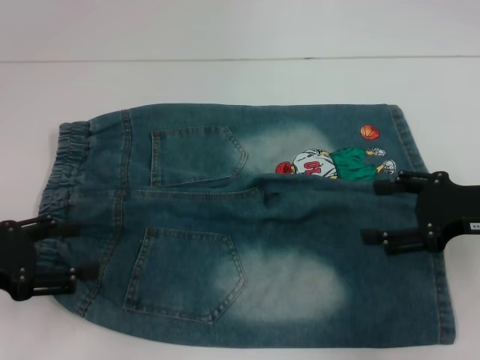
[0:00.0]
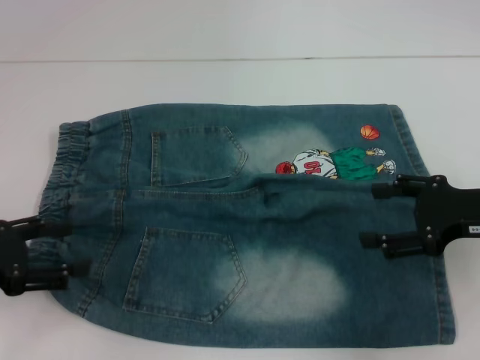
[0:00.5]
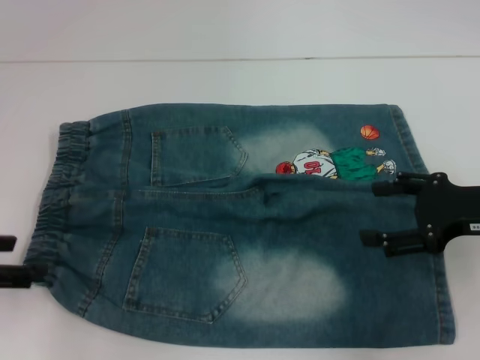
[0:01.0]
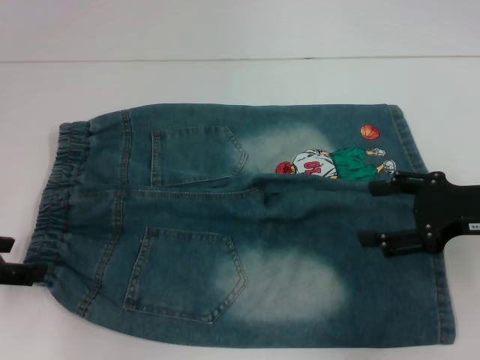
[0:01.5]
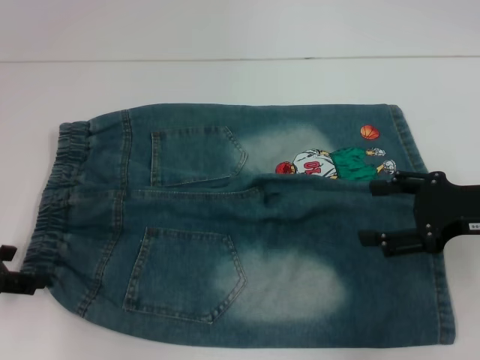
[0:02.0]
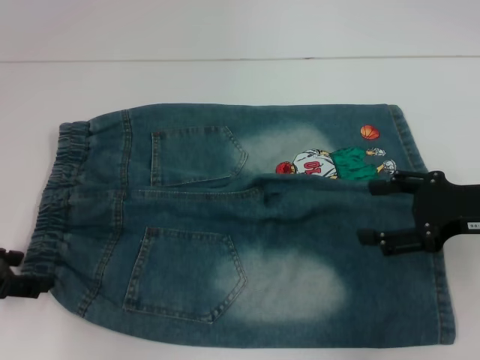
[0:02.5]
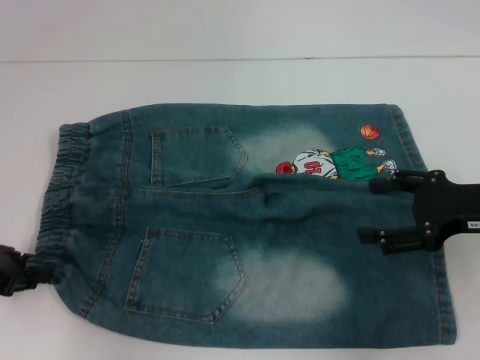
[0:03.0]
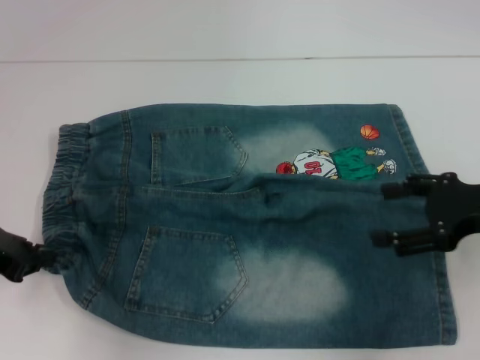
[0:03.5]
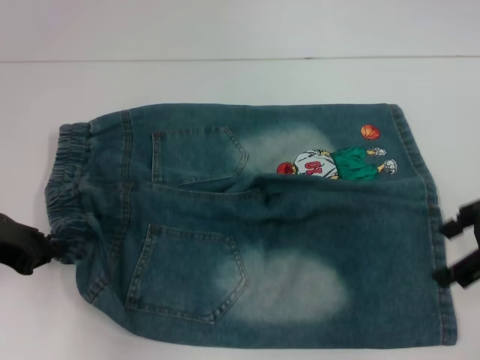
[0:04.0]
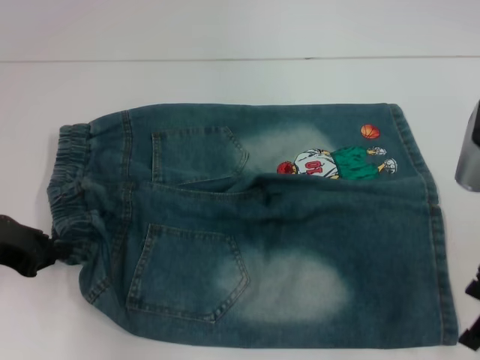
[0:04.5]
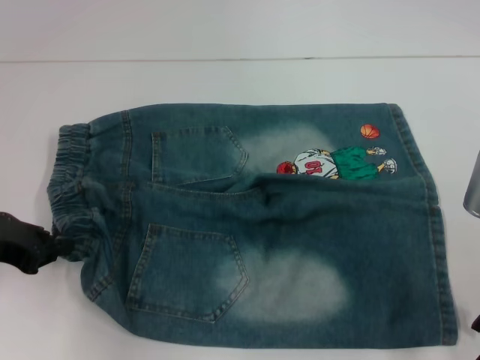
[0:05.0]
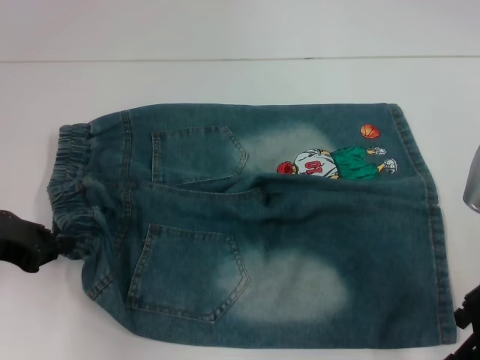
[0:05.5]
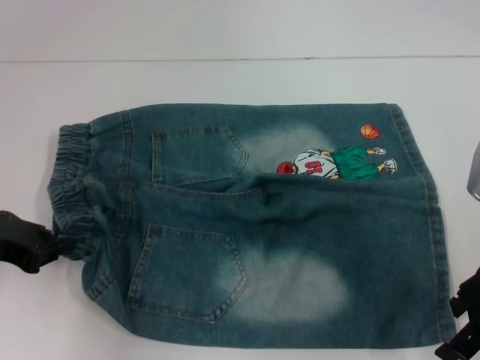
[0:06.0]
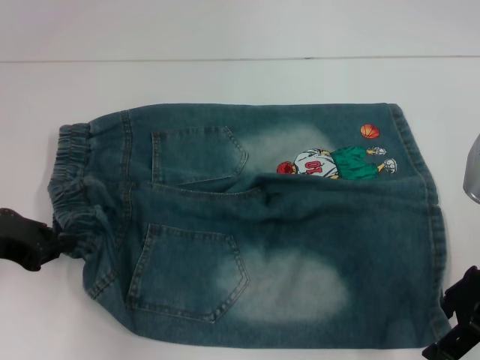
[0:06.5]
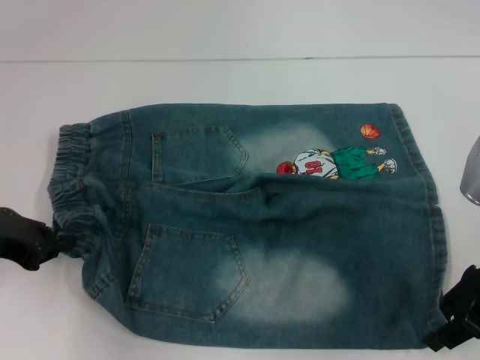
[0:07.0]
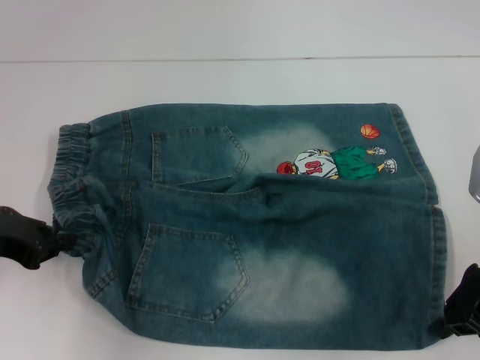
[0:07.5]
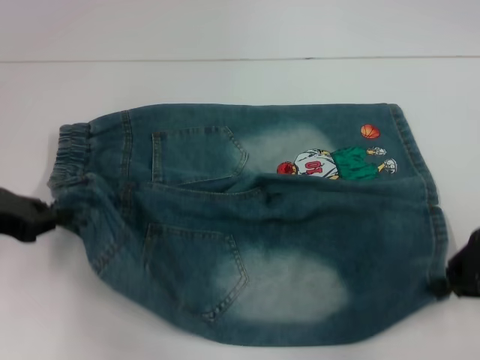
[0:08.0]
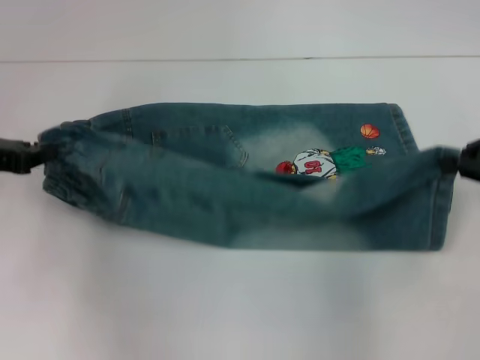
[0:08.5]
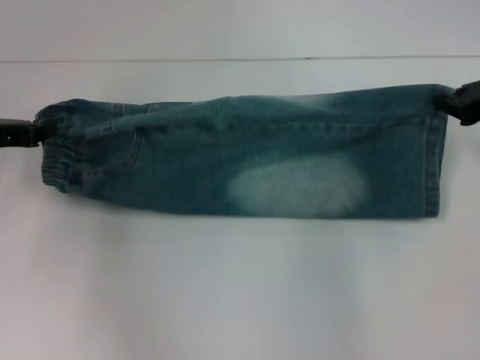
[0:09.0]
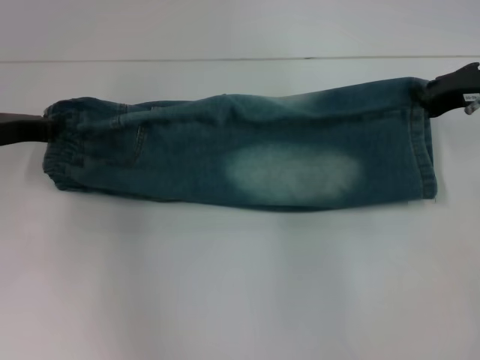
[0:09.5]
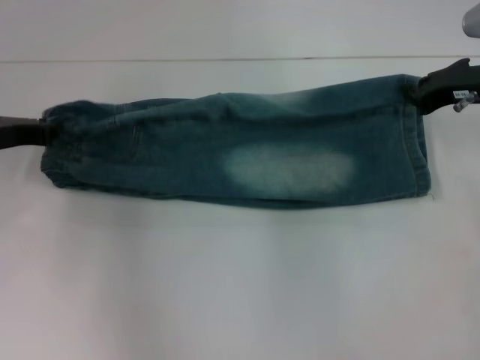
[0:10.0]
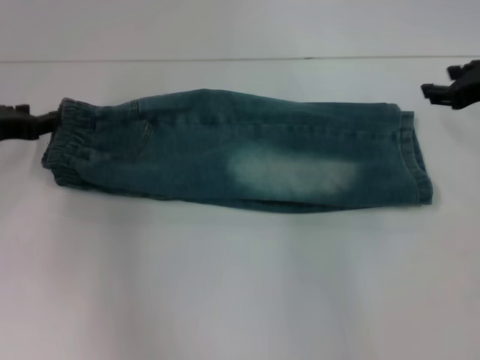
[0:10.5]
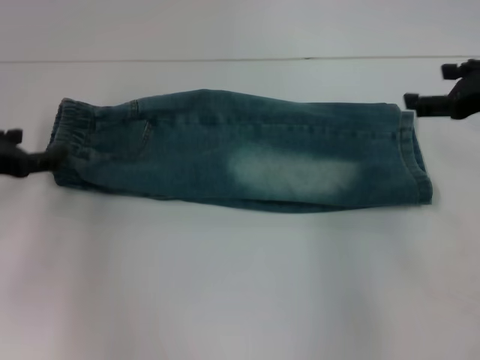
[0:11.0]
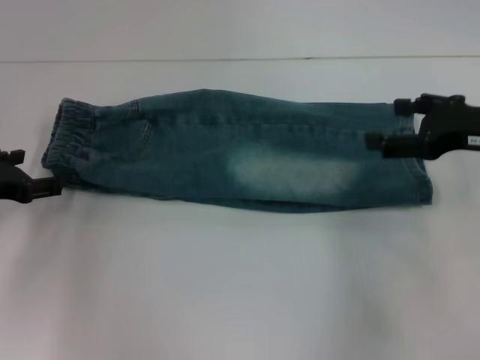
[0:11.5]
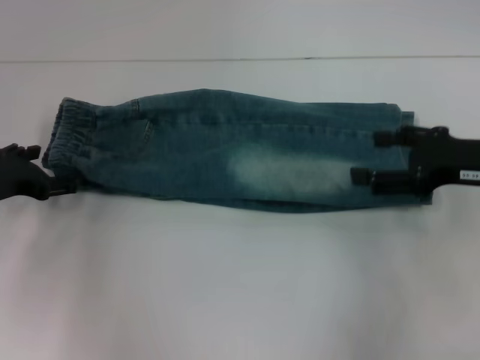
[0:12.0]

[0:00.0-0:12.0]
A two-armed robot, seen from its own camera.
Step, 0:00.0 to 0:03.5: Hold the lower left waistband with your left hand.
Step, 0:04.0 to 0:07.5: Grab the lower right pant leg with your right hand.
Step, 0:08.0 to 0:10.0: Fold upward with your left hand.
0:02.0 to 0:04.0: The left gripper closes up, while the right gripper goes approximately 5 cm upward.
0:04.0 to 0:06.0: The right gripper moves about 5 cm.
0:06.0 to 0:08.0: The right gripper closes its fingers.
0:08.0 to 0:10.0: Both grippers travel together forward, about 10 cm.
0:10.0 to 0:12.0: The right gripper travels backward by approximately 10 cm, and opens up, while the left gripper ends up some 5 cm from where it was, and opens.

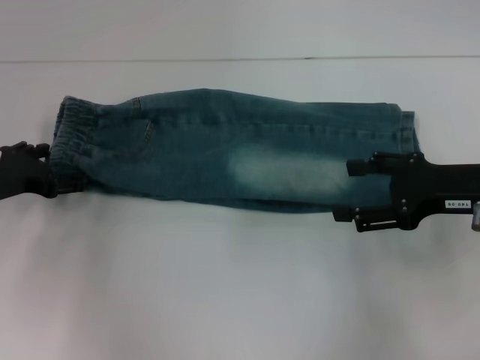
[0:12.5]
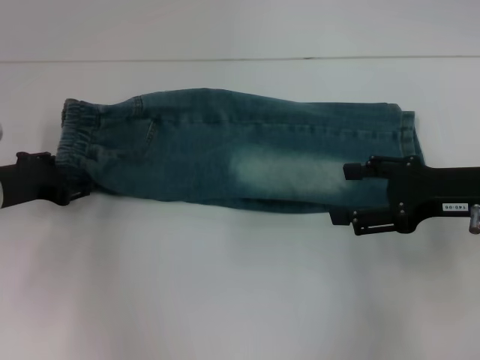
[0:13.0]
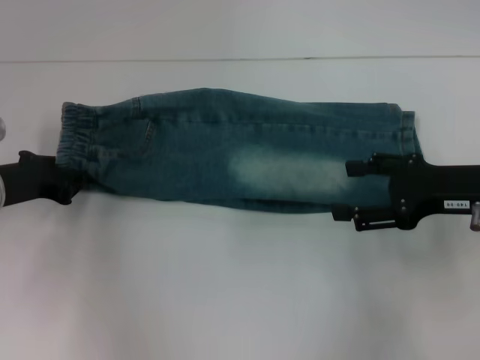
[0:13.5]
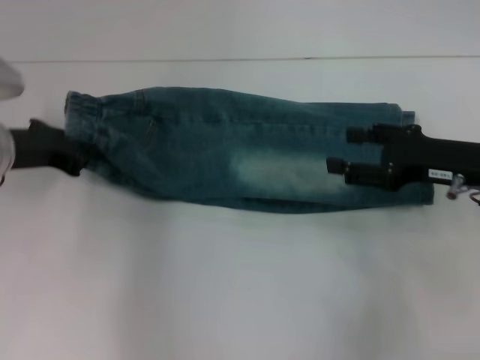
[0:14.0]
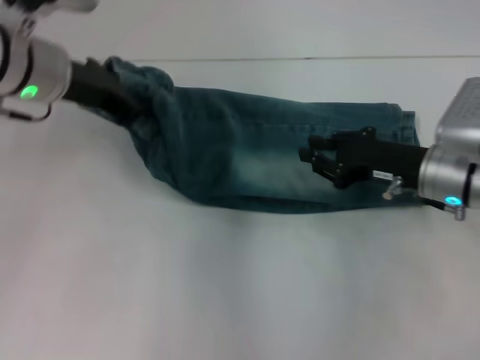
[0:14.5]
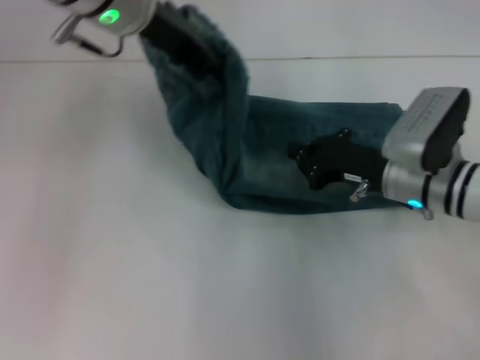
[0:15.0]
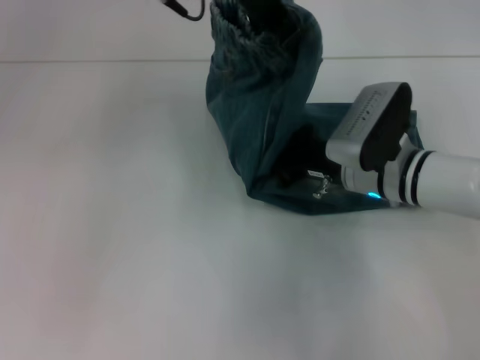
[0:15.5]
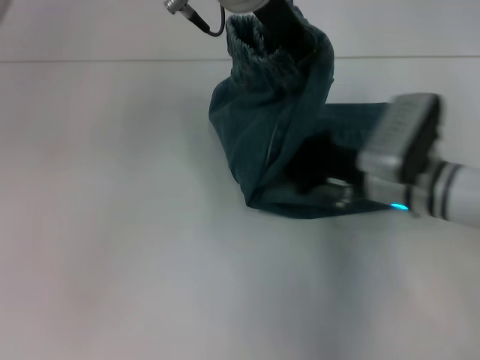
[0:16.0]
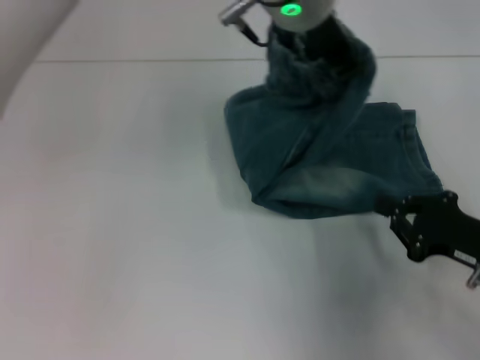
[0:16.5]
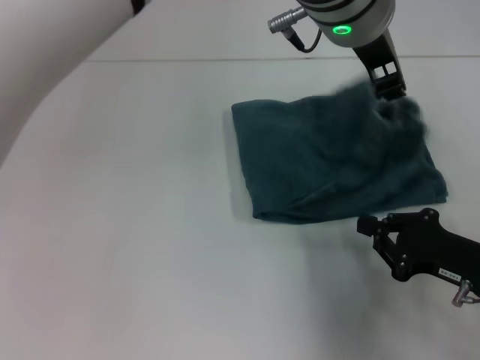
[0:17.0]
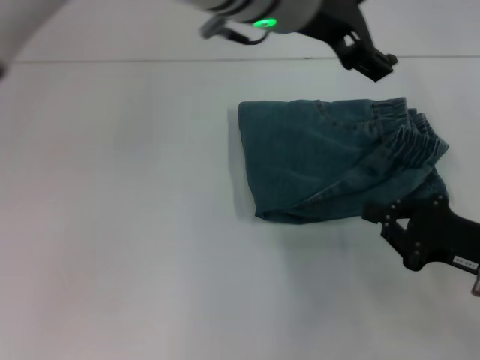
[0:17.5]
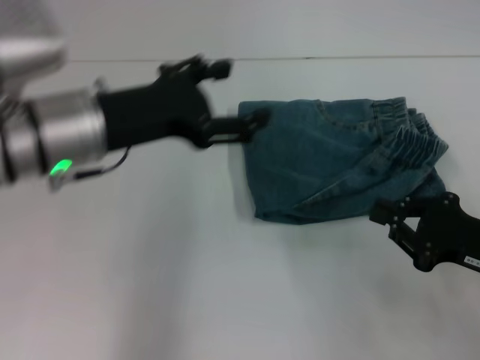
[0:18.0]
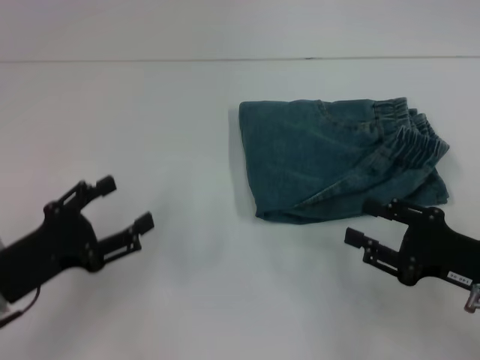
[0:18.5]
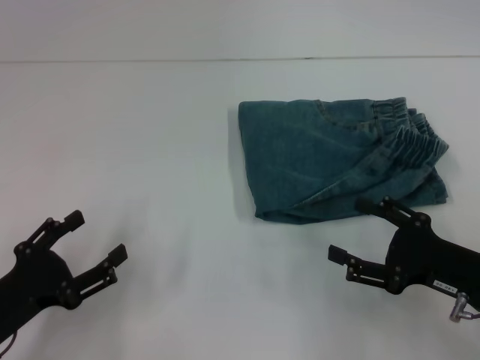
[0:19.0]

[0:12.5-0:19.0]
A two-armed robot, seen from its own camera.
Step, 0:14.0 to 0:15.5: Press the middle of the pants with your right hand.
Step, 0:16.0 to 0:17.0: Fold to the right with your left hand.
0:12.5 to 0:14.5: The left gripper shifts about 15 cm upward, to the right and forward, and closes, while the right gripper shifts roughly 5 cm downward, and closes up.
0:14.5 to 0:17.0: The right gripper heads backward and to the right, covering approximately 10 cm, and closes up. Meanwhile the left gripper travels to the right by approximately 25 cm.
0:17.0 to 0:19.0: The right gripper opens up; the left gripper goes roughly 50 cm to the left, downward and backward, and opens its fingers.

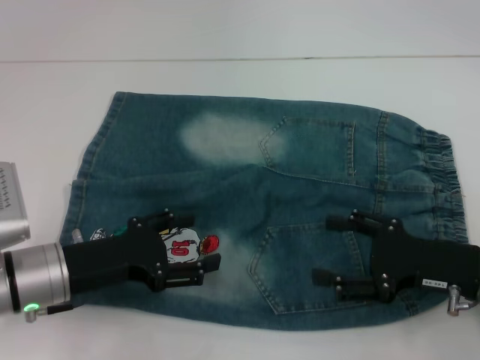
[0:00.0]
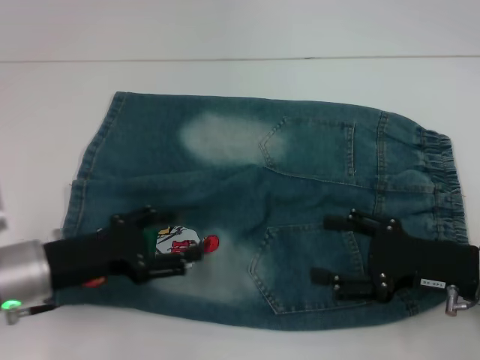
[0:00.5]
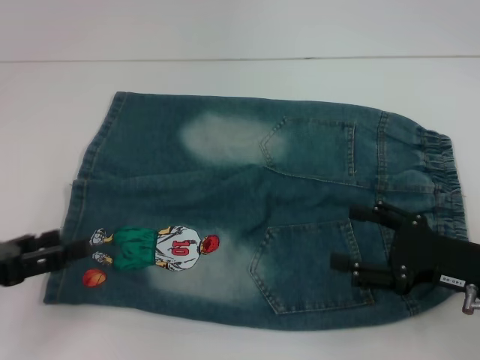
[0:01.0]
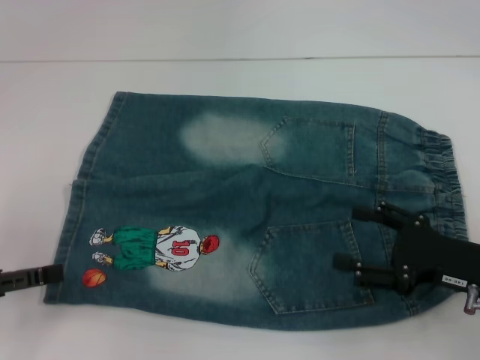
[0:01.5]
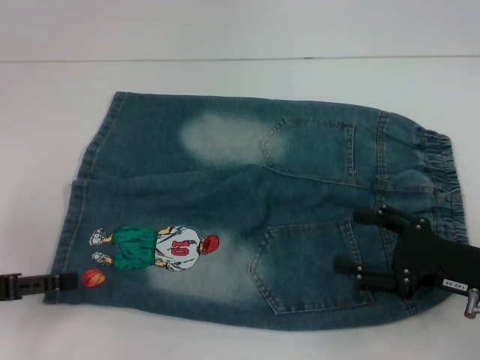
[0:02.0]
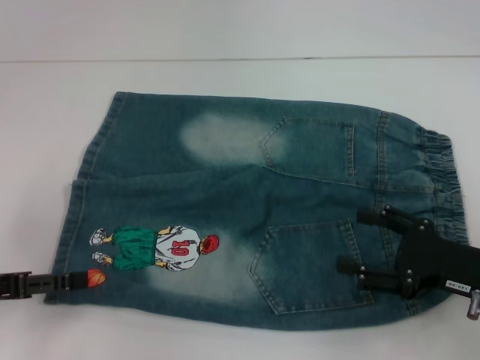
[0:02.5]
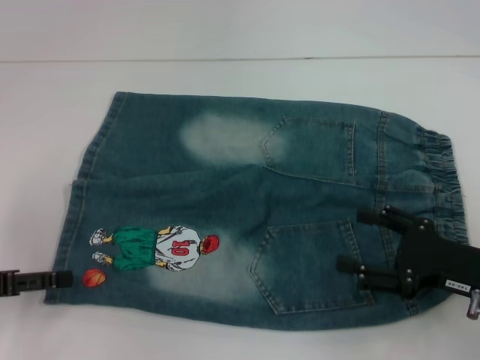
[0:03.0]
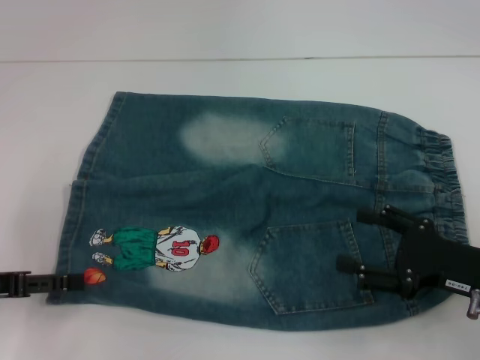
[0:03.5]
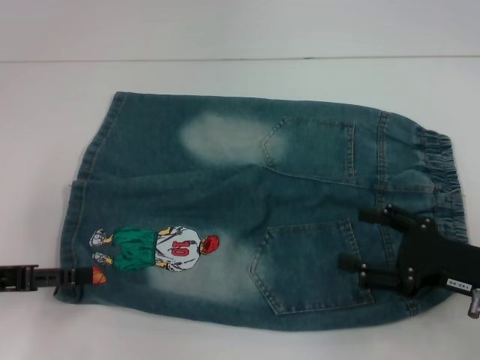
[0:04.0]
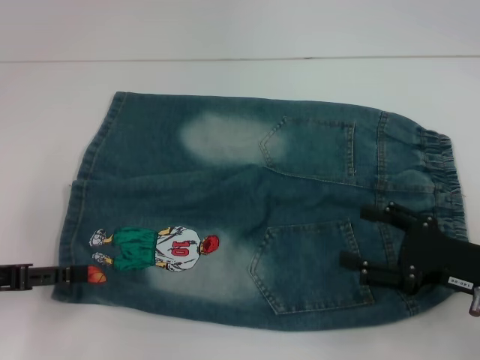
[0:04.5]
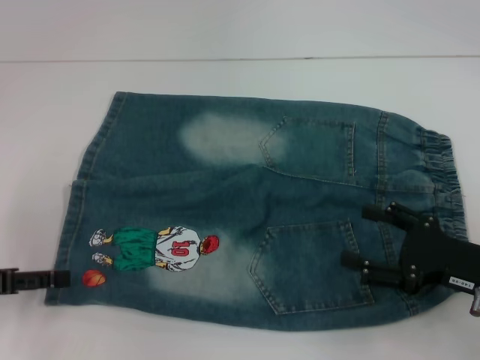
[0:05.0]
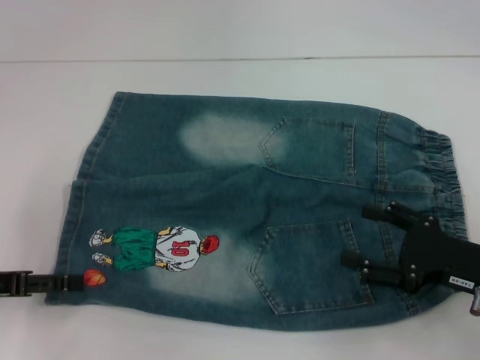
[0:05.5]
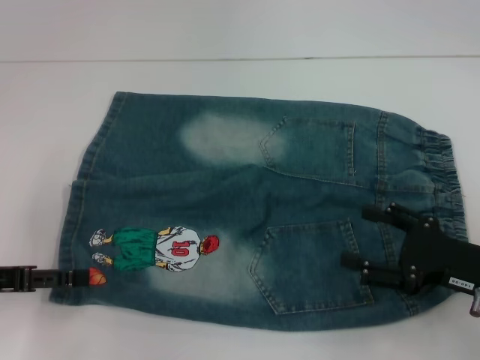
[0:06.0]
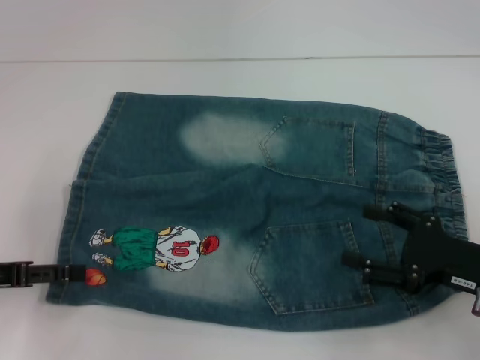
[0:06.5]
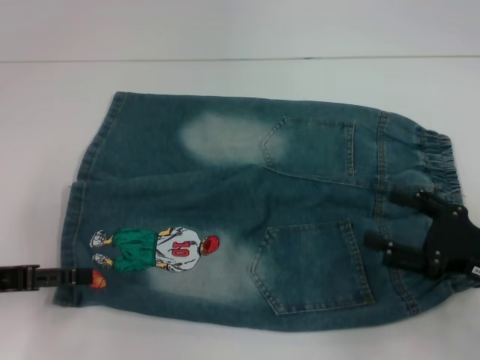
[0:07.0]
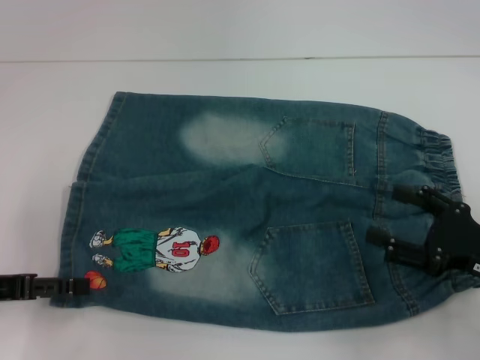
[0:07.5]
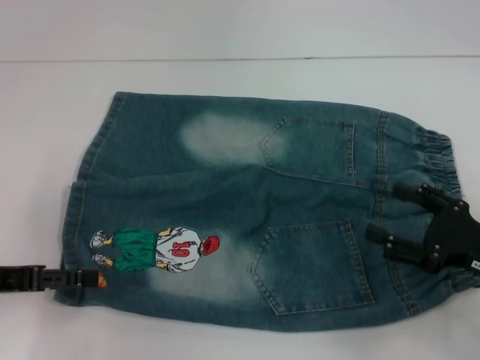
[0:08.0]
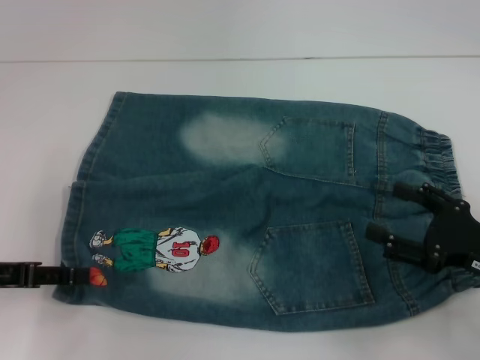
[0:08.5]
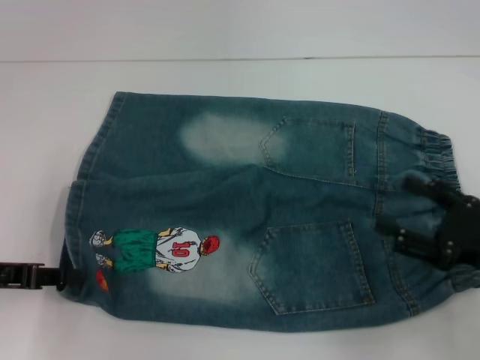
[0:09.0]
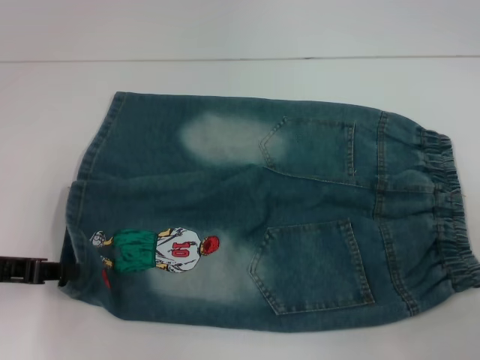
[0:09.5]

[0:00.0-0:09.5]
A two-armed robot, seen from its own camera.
0:00.0 to 0:02.0: The left gripper is displaced to the left by roughly 10 cm.
0:02.0 to 0:07.5: The grippers make only small movements.
0:07.5 to 0:09.5: The right gripper shifts approximately 10 cm backward and to the right. The left gripper closes up.
